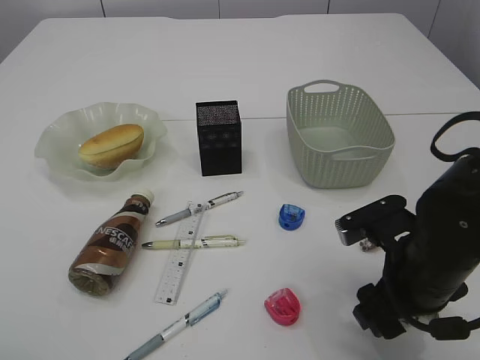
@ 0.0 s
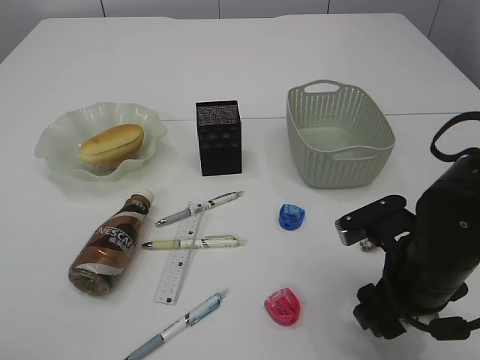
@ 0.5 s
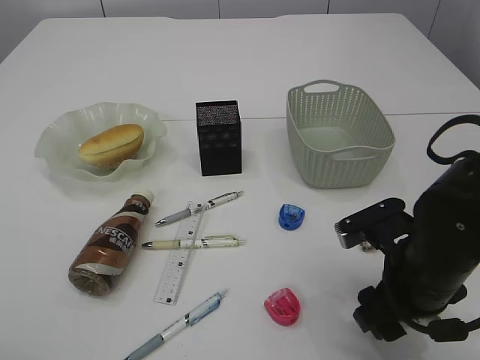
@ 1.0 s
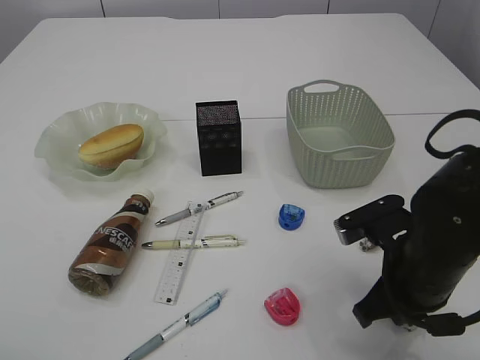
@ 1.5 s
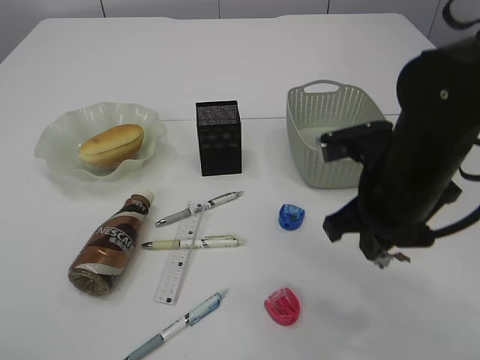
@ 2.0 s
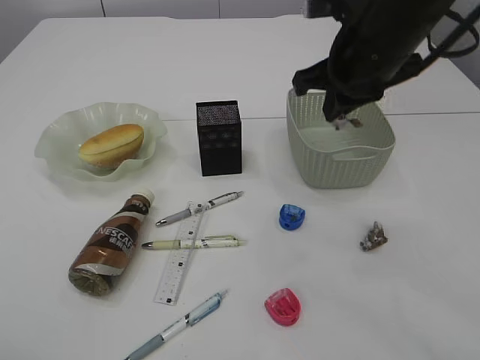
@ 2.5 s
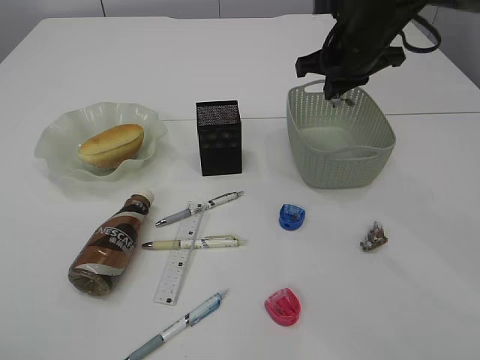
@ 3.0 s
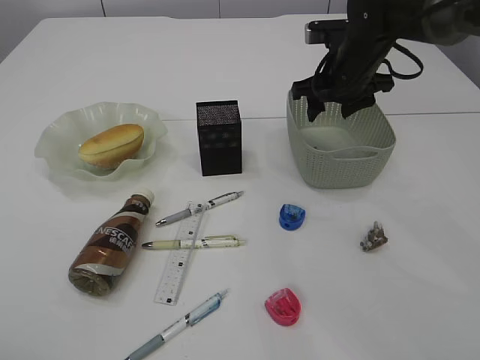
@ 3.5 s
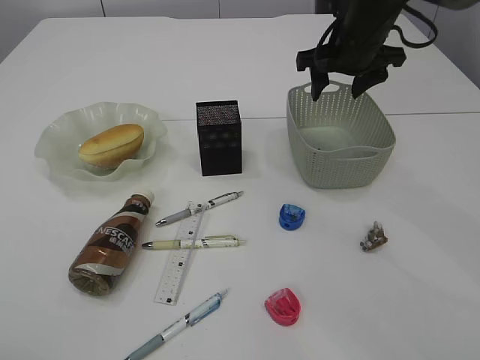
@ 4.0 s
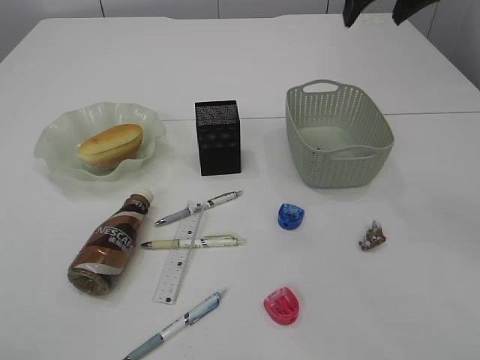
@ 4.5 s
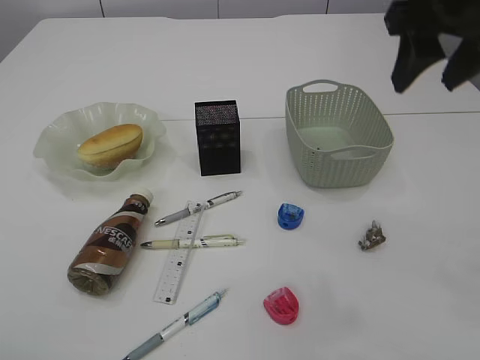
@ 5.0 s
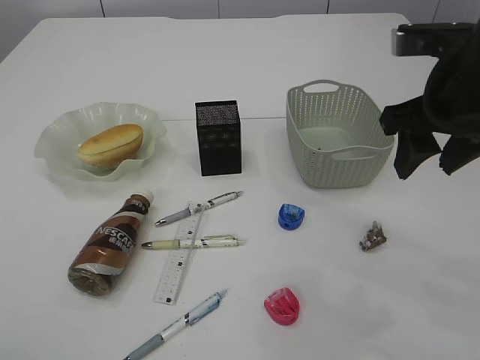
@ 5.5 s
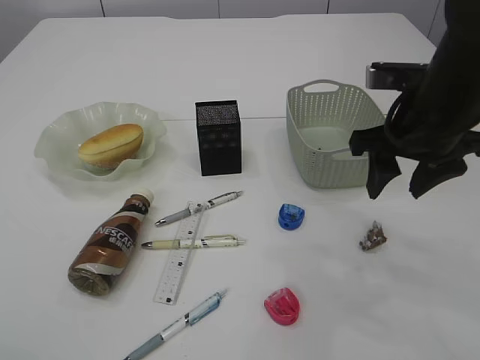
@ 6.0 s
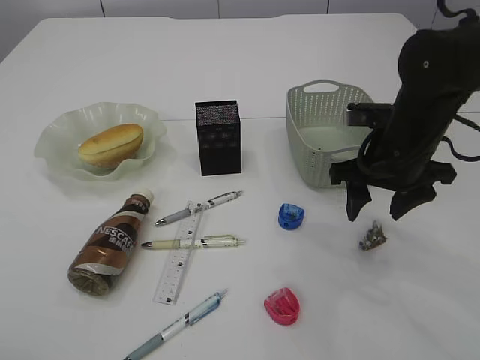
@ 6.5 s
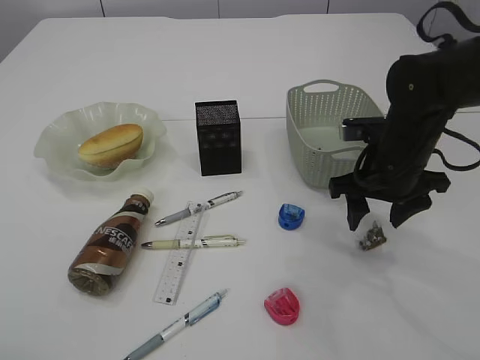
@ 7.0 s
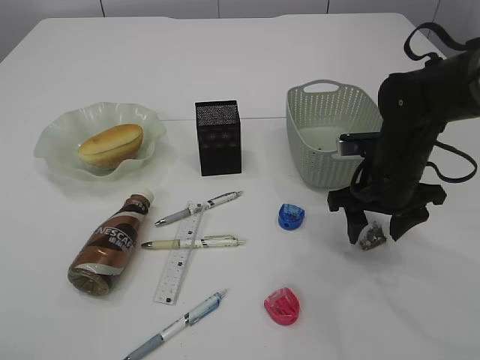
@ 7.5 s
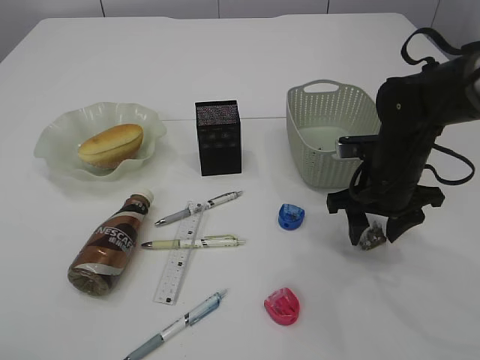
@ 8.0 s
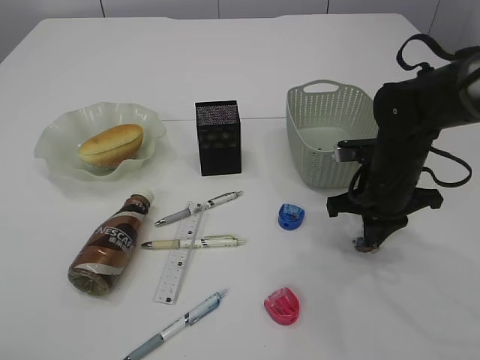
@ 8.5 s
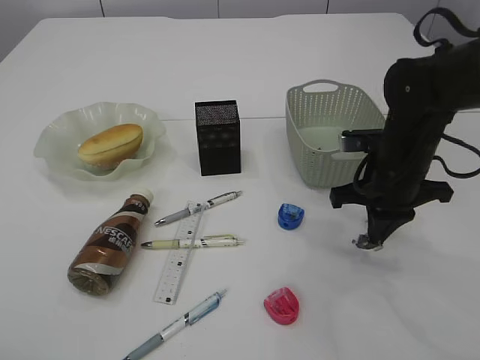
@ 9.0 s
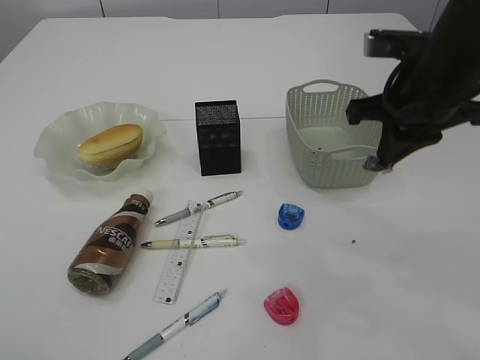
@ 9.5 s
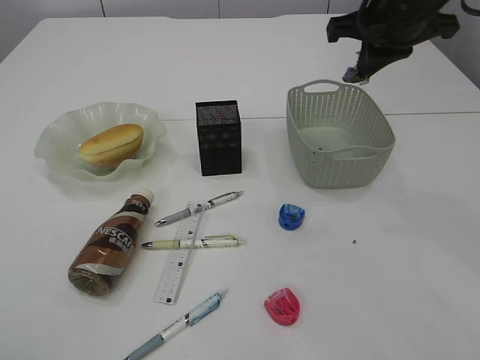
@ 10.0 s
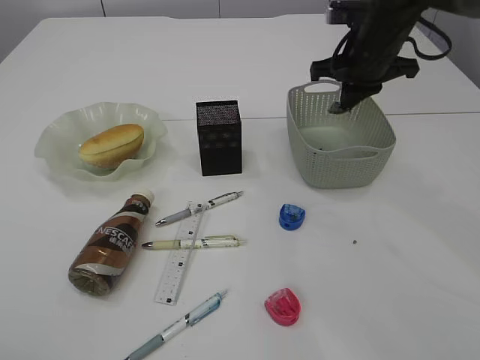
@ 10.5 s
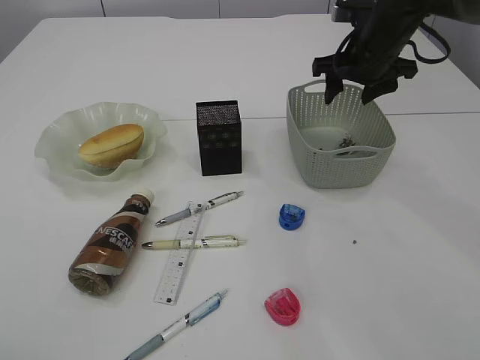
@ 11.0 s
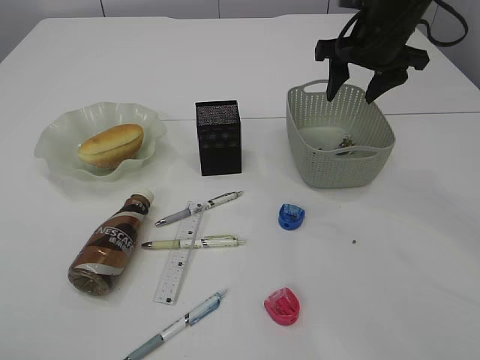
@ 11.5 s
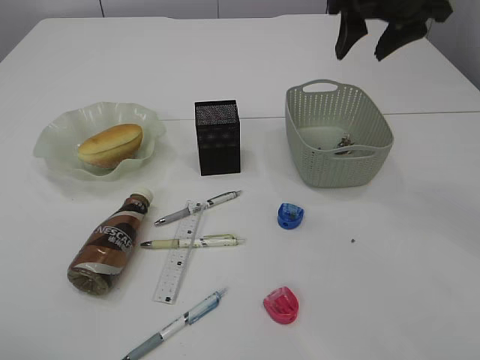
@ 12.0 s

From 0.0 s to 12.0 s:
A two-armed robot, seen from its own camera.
Step, from 2.0 s to 3.5 s: Place the waste paper in the basket.
Step, from 4.0 s to 9.0 s: Pick up the waste paper.
Step, from 9.5 s to 10.5 s: Place the waste paper in the basket.
From 0.0 s to 2.0 s: The right gripper is displaced upward by about 5 cm, and closes its fingers.
From 2.0 s to 4.0 s: The right gripper goes roughly 20 cm forward, and opens up.
From 4.0 s to 6.0 s: The right gripper is displaced backward by approximately 15 cm.
From 6.0 s to 8.0 s: The right gripper goes approximately 10 cm downward.
From 8.0 s to 10.0 s: The right gripper is displaced upward by some 20 cm, and closes its fingers.
From 10.0 s to 12.0 s: The right gripper reaches approximately 10 cm downward, then returns, and opens up.

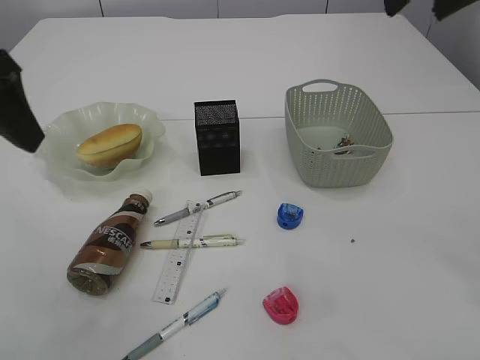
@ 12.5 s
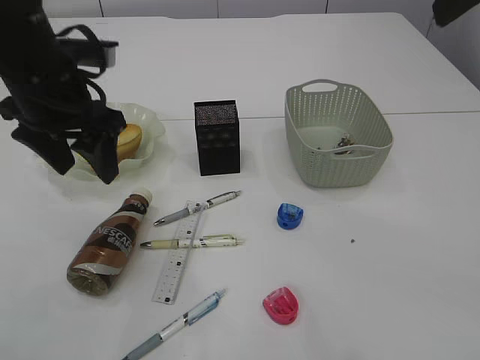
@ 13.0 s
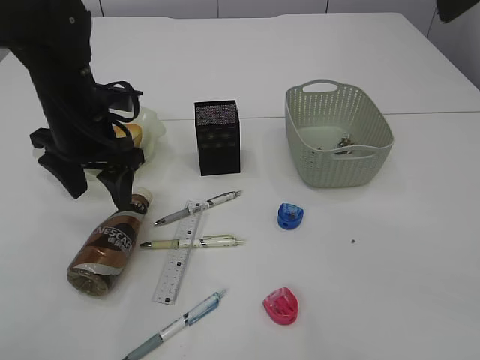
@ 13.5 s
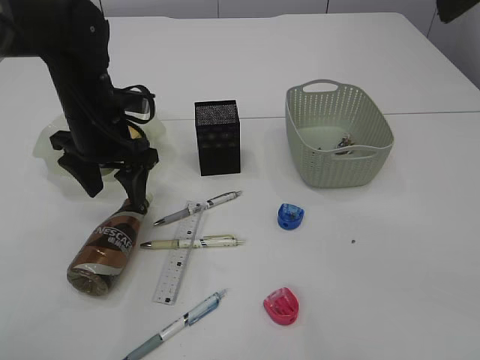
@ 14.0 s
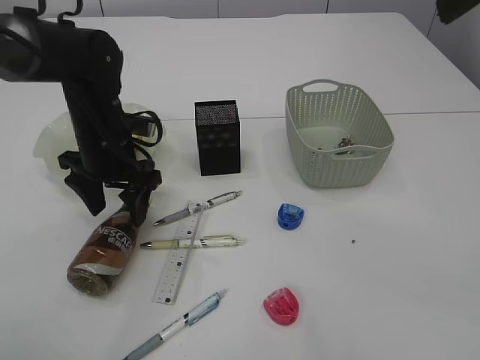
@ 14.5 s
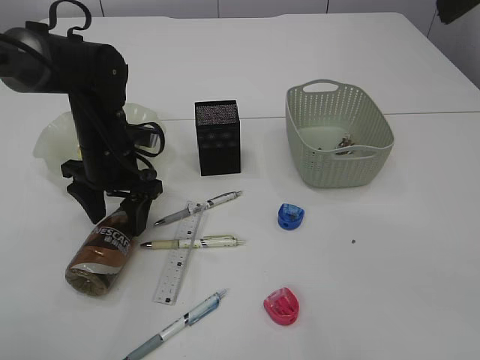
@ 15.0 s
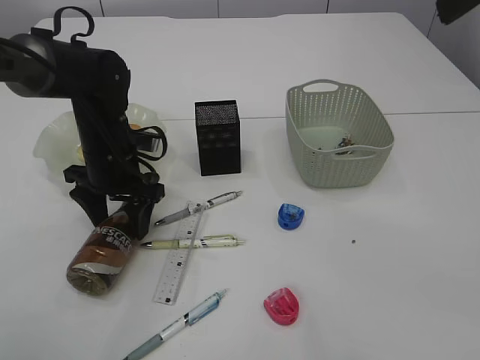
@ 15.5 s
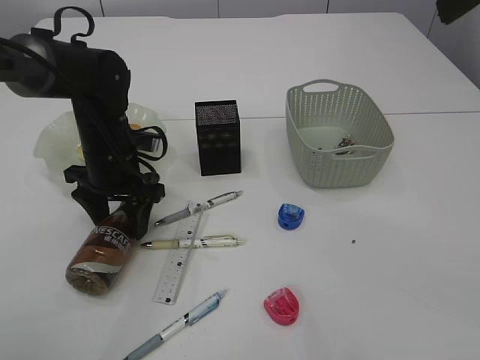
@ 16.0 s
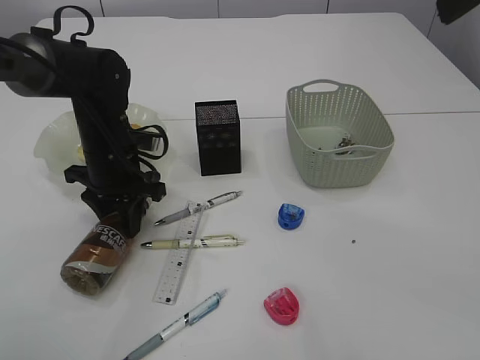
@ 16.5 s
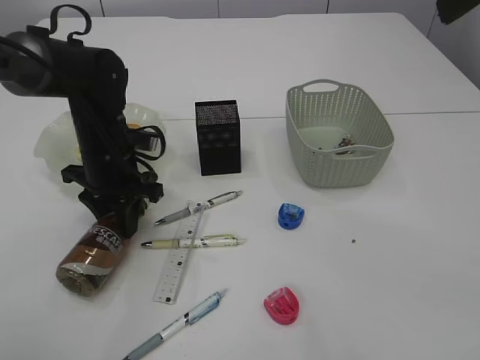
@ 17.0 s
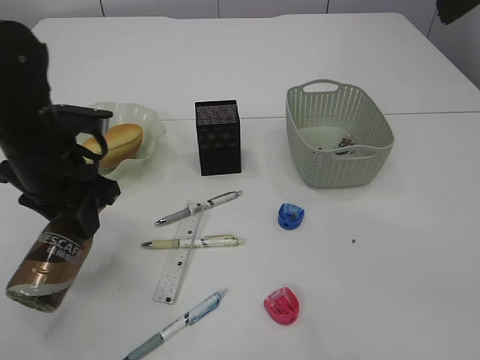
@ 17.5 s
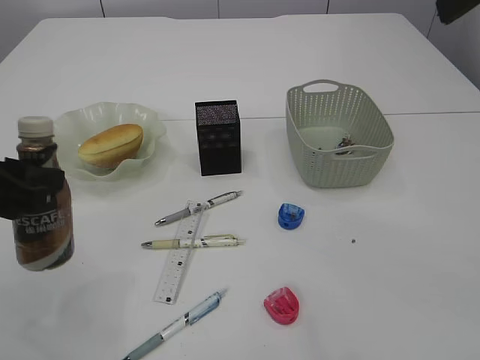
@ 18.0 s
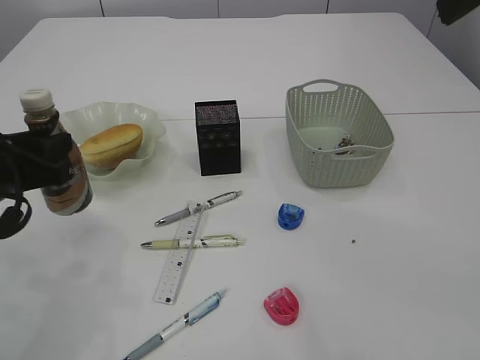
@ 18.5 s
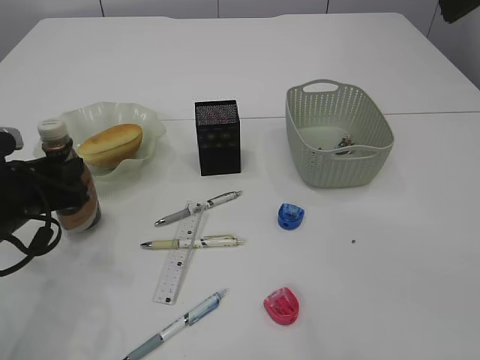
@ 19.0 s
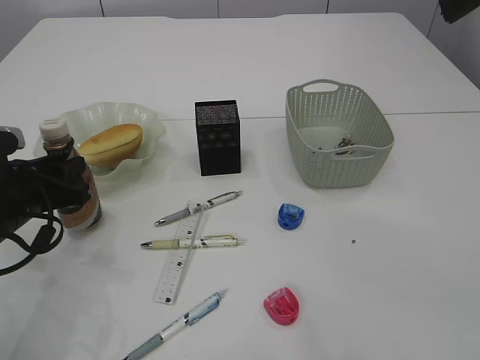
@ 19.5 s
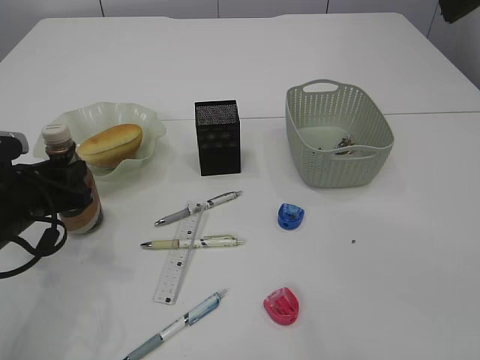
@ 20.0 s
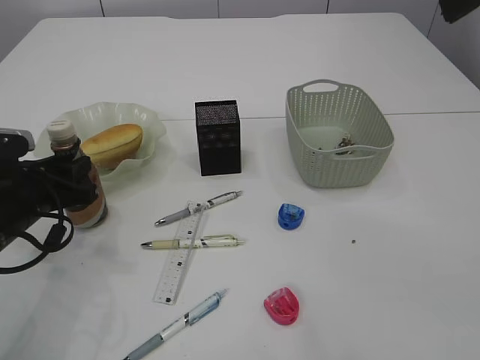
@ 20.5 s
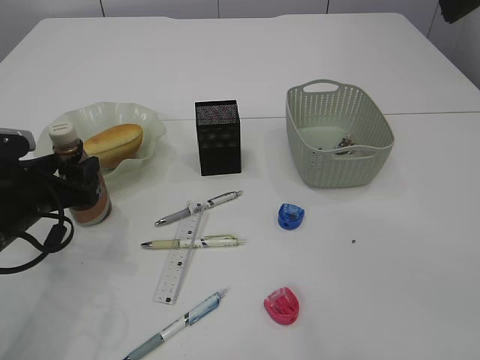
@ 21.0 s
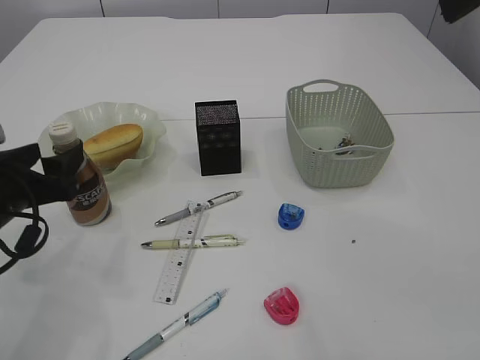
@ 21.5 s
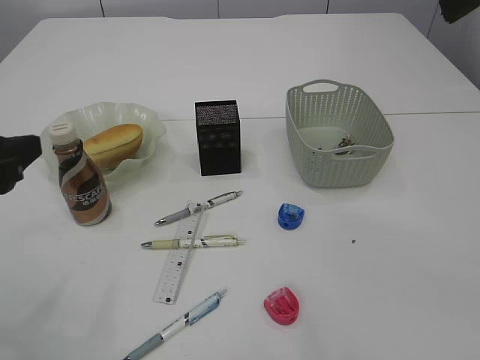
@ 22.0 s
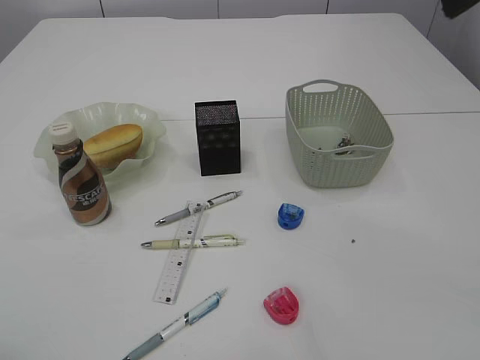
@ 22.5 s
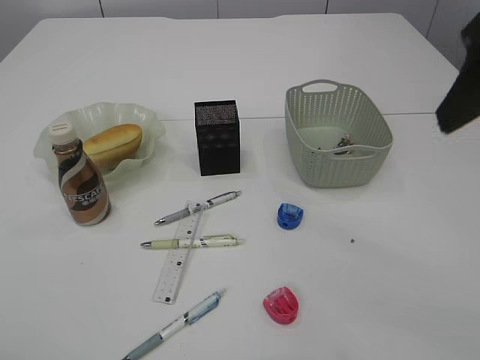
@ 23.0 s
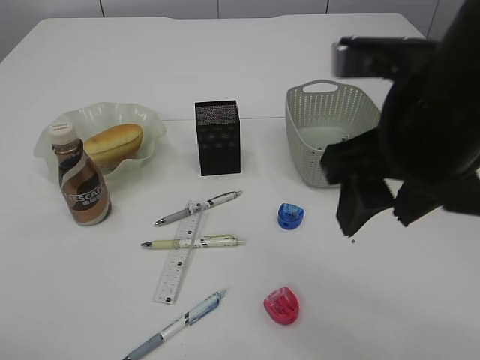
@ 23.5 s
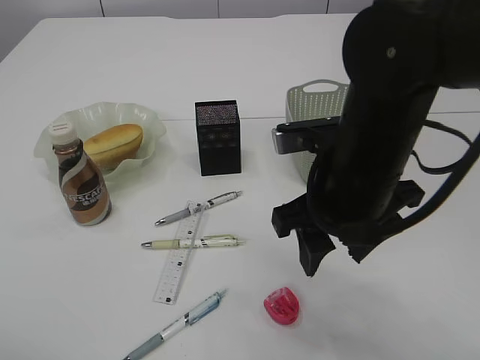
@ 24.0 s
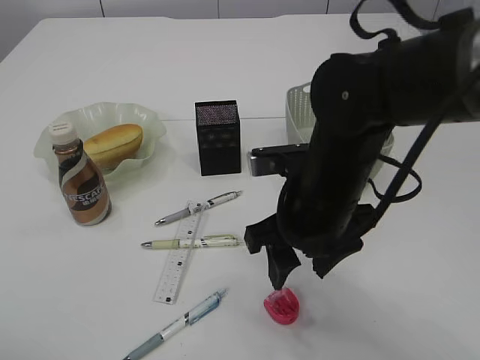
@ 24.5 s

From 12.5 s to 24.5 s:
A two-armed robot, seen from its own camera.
Step, from 12.5 s to 17.5 s: Pick up the bottle with the left arm.
Step, from 18.0 s to 22.0 s: Place the bottle.
From 12.5 s to 14.5 s: The right gripper moves backward, some 5 cm. The left gripper is displaced downward and forward by approximately 25 cm.
From 14.5 s to 16.5 s: The left gripper closes its fingers.
From 16.5 s to 18.5 s: The left gripper moves backward, to the left and upward, about 15 cm.
From 18.5 s to 20.5 s: The left gripper shifts roughly 5 cm downward.
From 20.5 s to 22.5 s: The left gripper is displaced upward and backward by about 25 cm, and opens.
From 22.5 s to 24.5 s: The right gripper travels downward and to the left by about 30 cm.

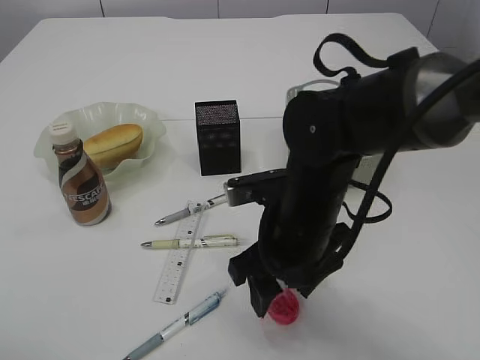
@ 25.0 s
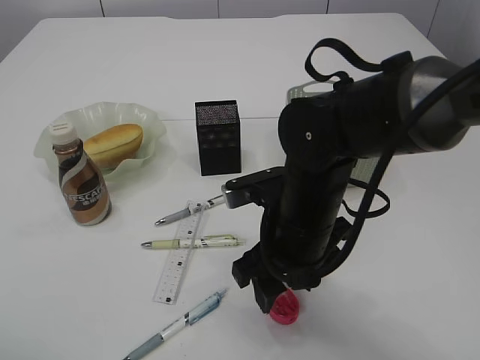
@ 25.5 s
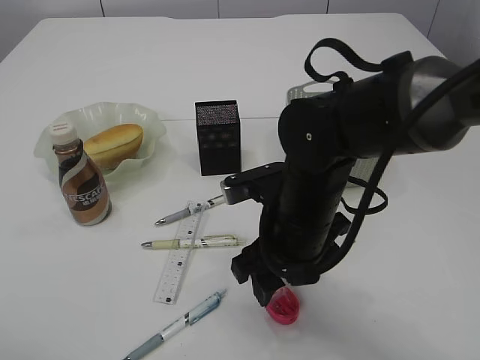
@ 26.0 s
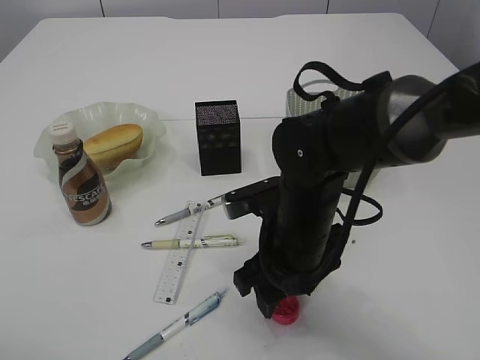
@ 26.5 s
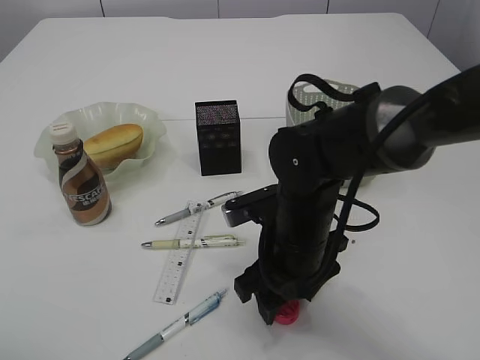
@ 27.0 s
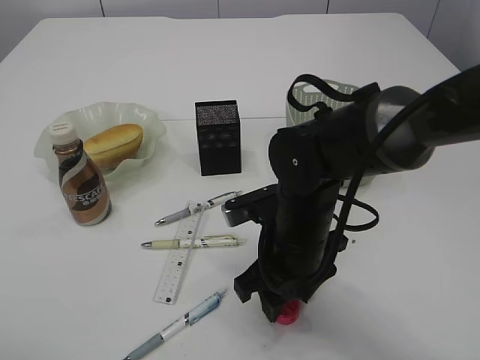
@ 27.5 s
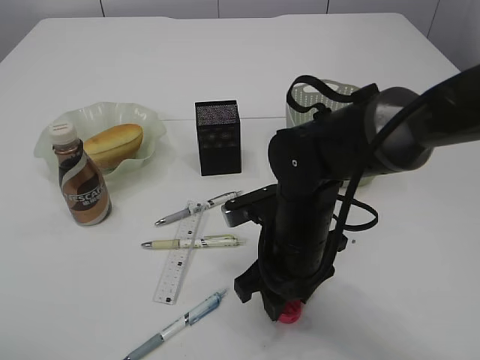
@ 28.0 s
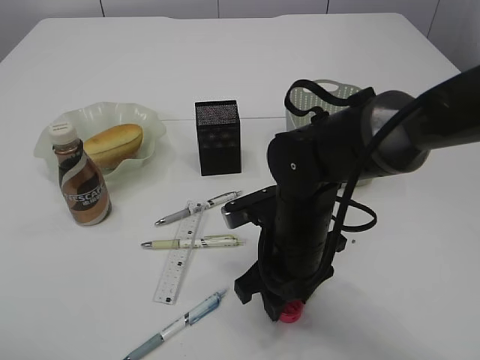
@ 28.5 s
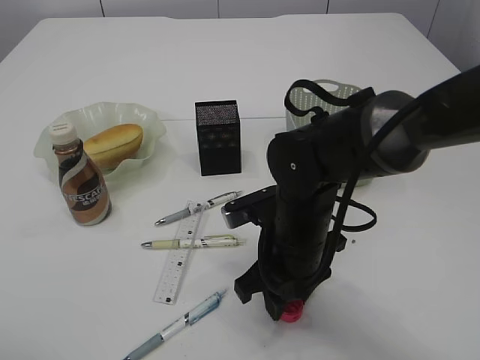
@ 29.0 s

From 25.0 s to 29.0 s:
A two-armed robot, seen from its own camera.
From 25.0 s to 27.0 s: The grippers stay close to where they were, moving slightly.
From 27.0 s to 29.0 s: The right gripper closes up.
